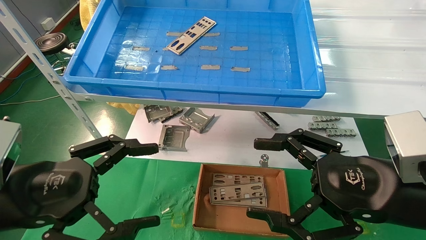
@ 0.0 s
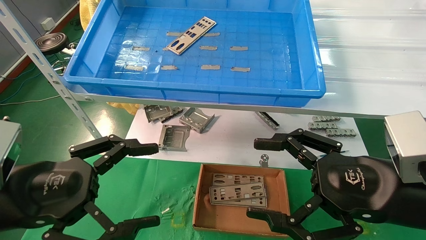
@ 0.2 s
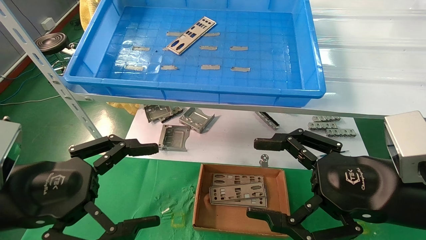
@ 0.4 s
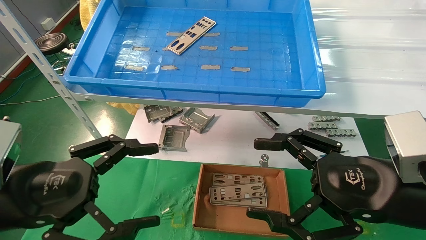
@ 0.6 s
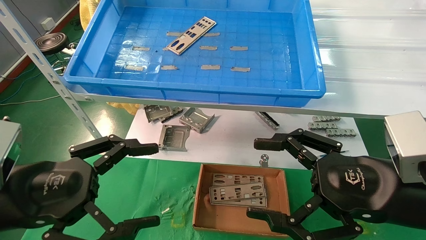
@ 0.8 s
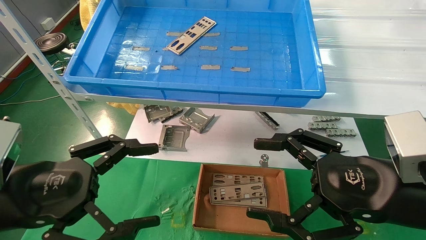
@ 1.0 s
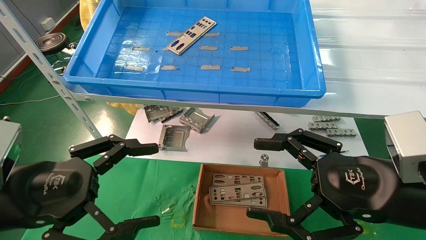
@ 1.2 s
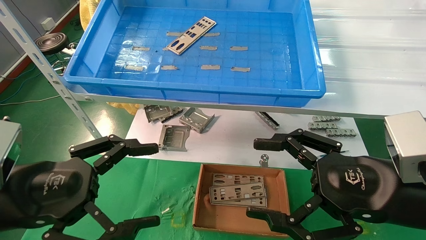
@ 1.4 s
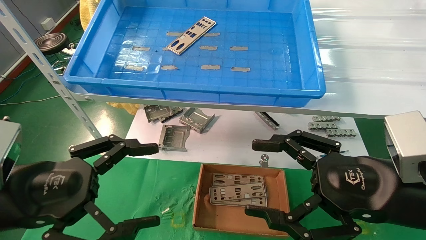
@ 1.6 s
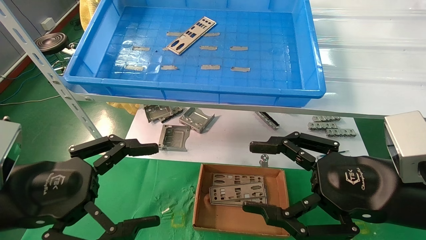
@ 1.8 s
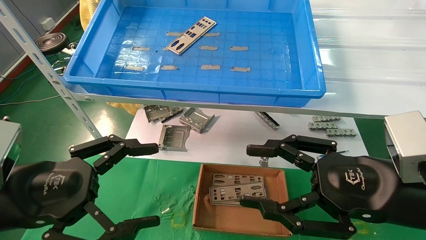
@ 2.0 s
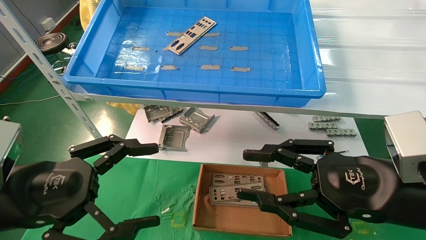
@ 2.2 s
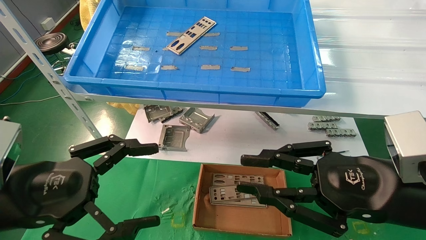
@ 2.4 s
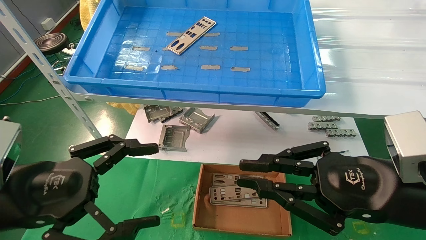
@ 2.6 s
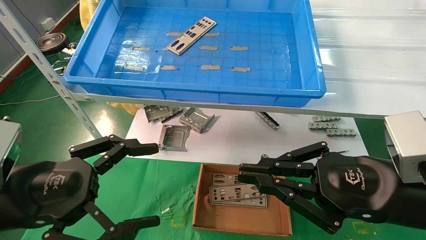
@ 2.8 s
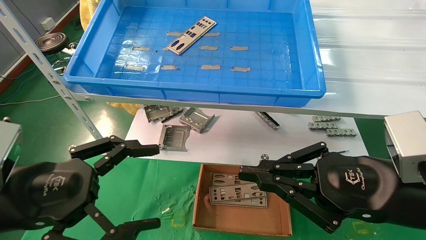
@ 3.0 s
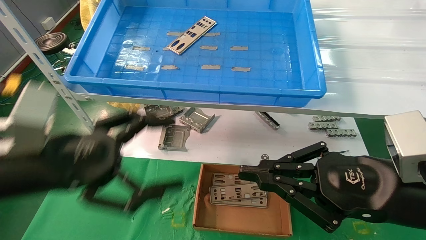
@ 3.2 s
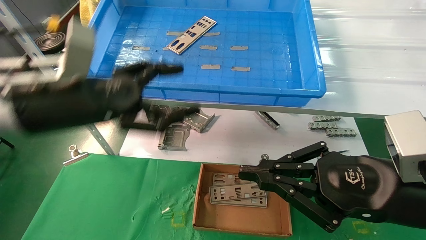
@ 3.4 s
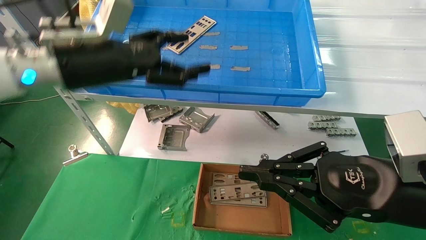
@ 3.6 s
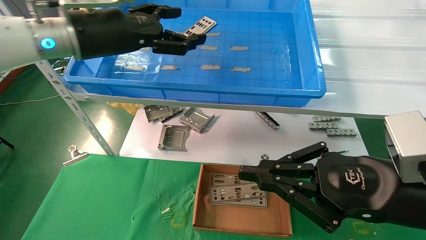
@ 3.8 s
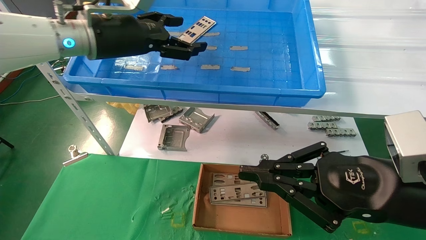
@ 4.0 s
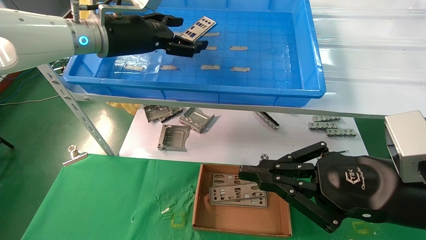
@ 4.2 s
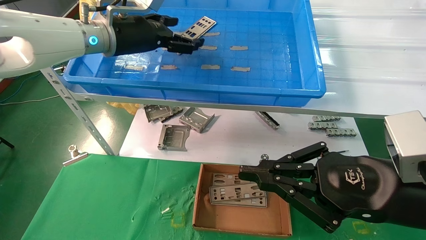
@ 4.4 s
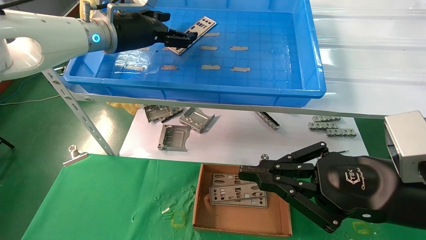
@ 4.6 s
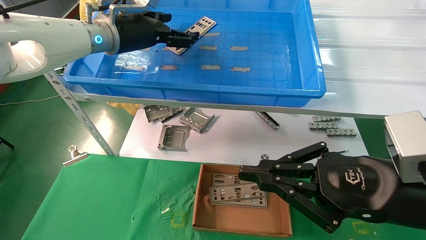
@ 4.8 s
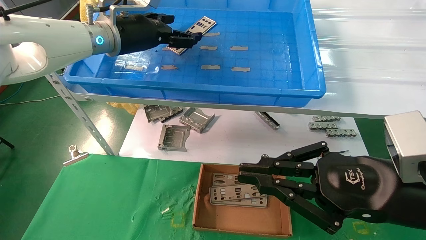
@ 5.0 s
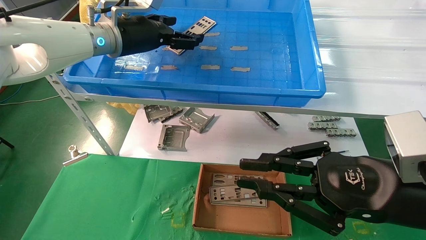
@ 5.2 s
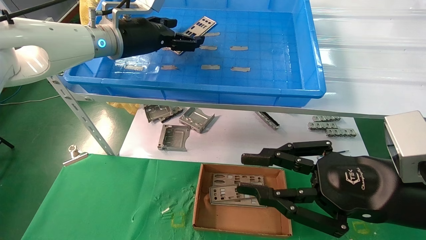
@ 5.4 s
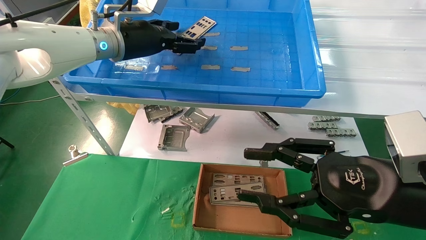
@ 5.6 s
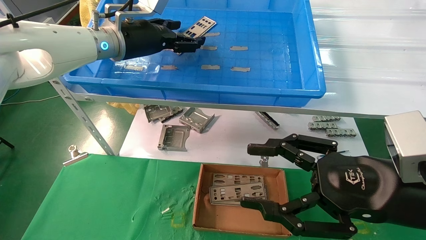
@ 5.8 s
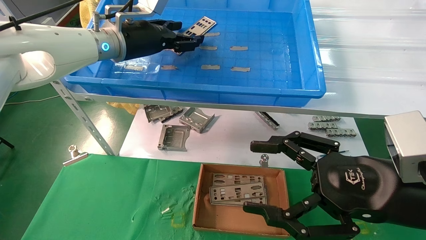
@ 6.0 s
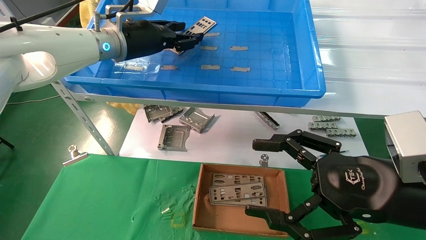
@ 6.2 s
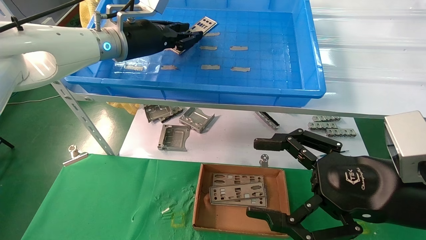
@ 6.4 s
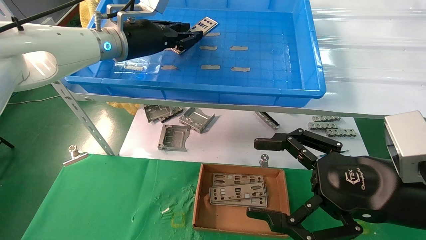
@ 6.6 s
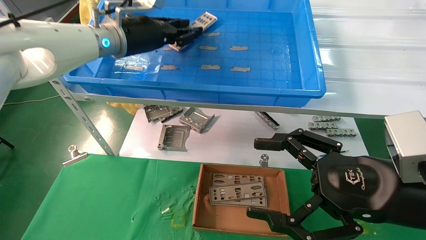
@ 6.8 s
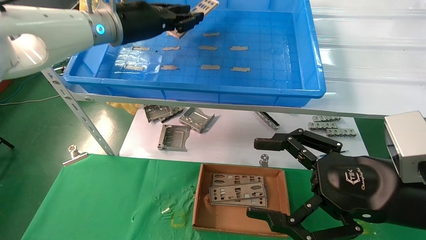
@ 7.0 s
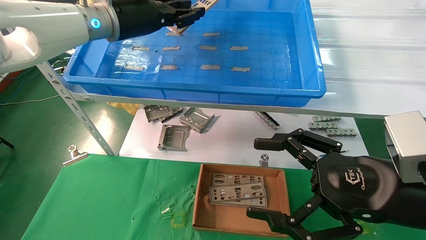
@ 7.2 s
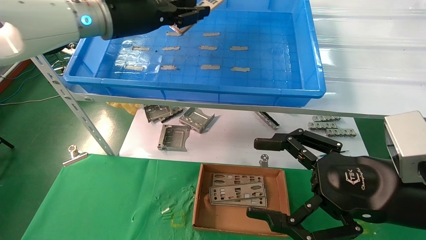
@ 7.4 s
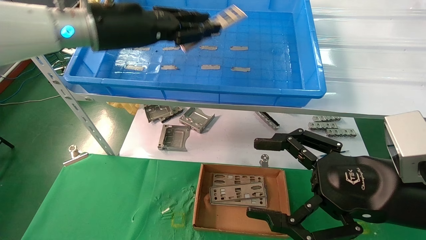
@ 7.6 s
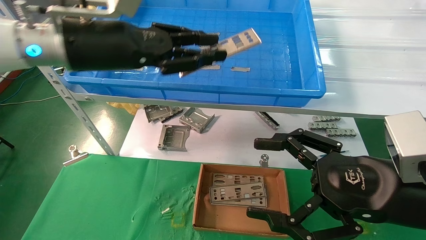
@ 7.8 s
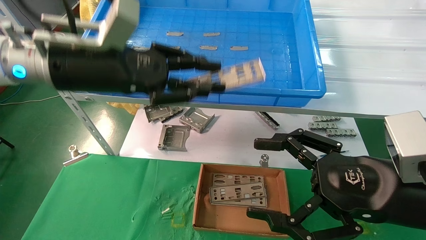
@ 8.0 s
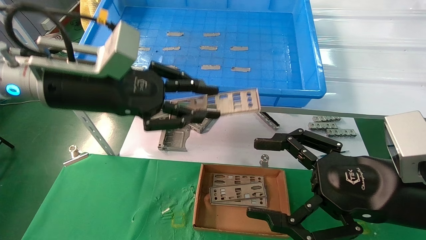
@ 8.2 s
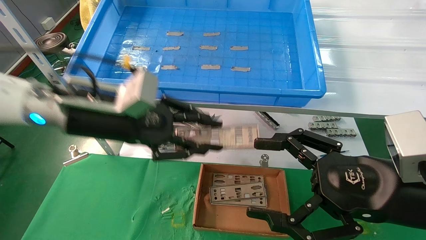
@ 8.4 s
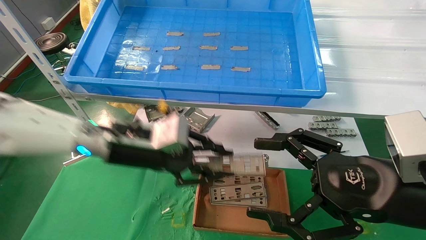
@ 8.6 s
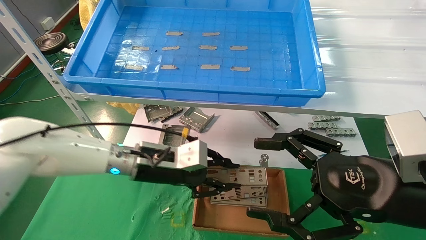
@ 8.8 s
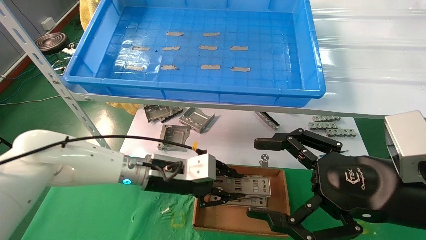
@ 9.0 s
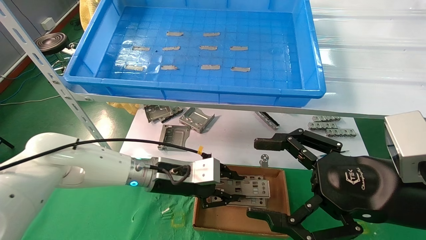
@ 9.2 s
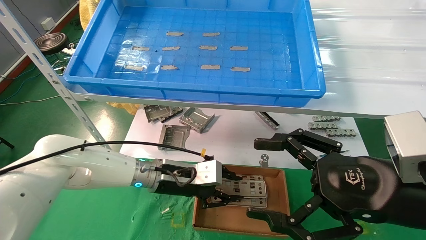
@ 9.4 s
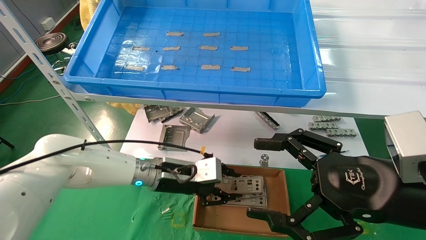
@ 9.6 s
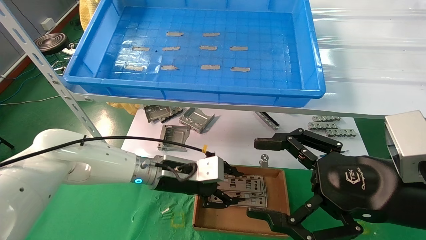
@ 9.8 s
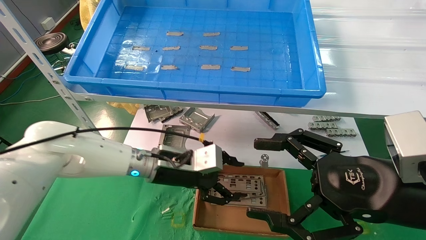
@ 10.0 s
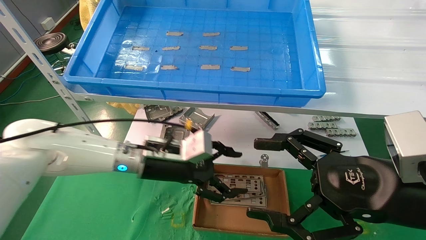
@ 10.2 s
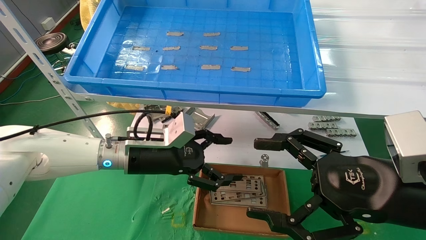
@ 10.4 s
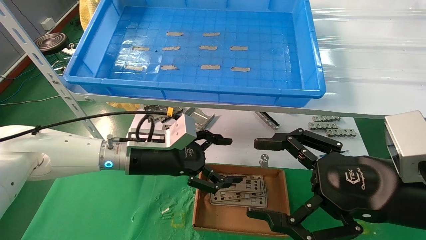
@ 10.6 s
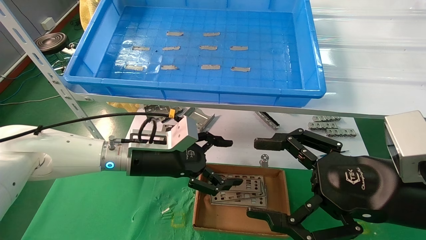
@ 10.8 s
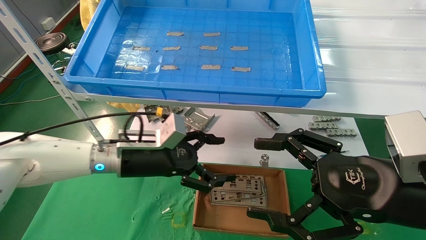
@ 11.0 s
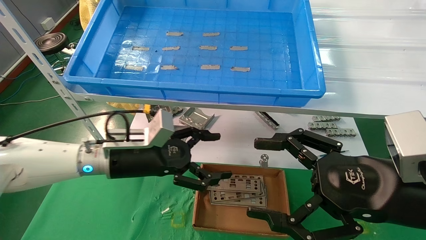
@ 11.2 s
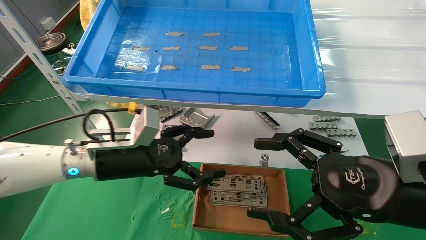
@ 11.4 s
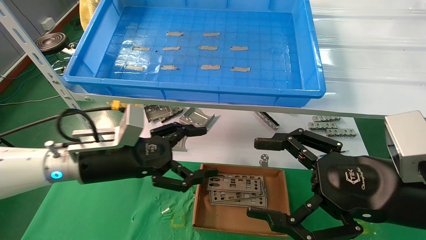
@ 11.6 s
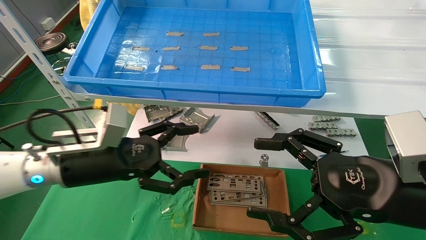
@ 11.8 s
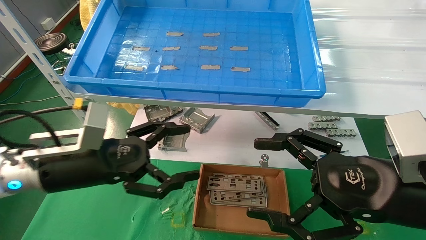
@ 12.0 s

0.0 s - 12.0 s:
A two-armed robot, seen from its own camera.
Task of the whole recording: pick up the parts on the tray and put them in the cardboard box.
Step, 3.4 s - 6.4 s: Pick up the IO bracket from the container box.
Step, 6.6 s - 10.2 s: Place the IO bracket into the ingredient slot.
0.0 s - 1.6 s: Both grippers stay about where they are.
1.6 s - 3.0 s: The right gripper closes its fingers.
3.0 s - 4.4 s: The left gripper shifts approximately 30 cm forward and upward.
4.4 s - 6.0 s: The right gripper opens.
6.0 s - 7.6 s: The left gripper moves backward, some 10 cm, and closes its fingers.
7.6 s - 9.0 s: The left gripper travels downward by approximately 25 cm.
9.0 s - 10.4 s: The left gripper opens up.
10.4 s - 12.0 s: The left gripper travels to the left and backward by some 15 cm.

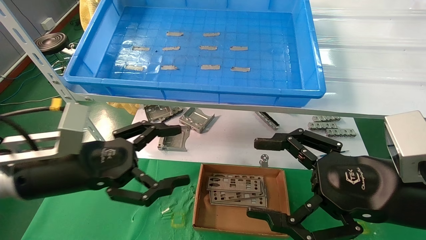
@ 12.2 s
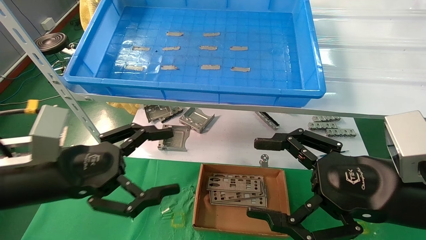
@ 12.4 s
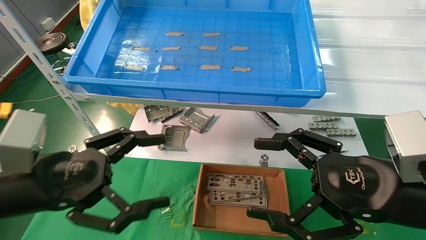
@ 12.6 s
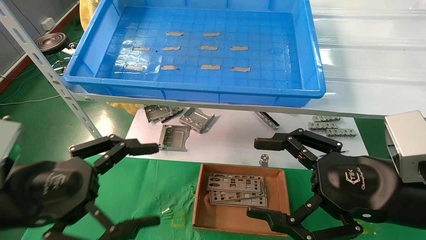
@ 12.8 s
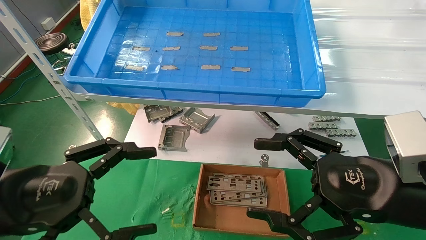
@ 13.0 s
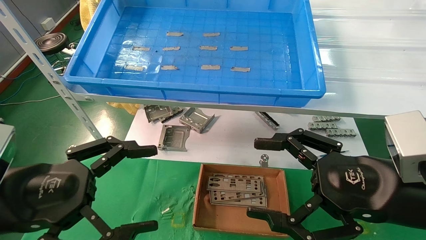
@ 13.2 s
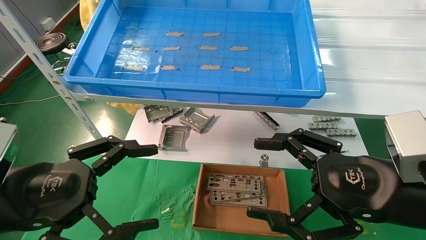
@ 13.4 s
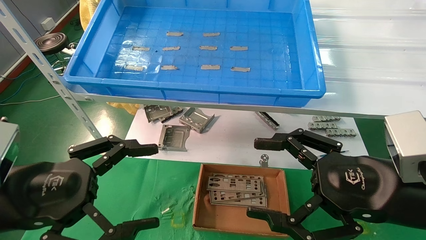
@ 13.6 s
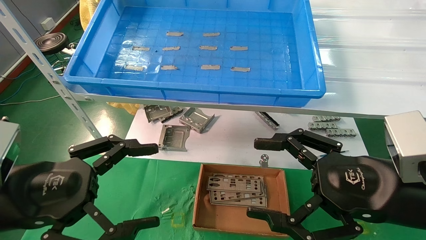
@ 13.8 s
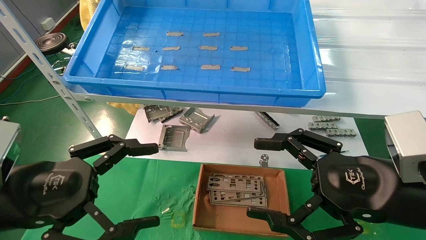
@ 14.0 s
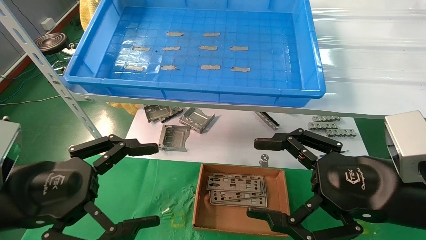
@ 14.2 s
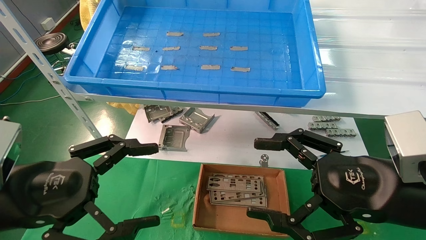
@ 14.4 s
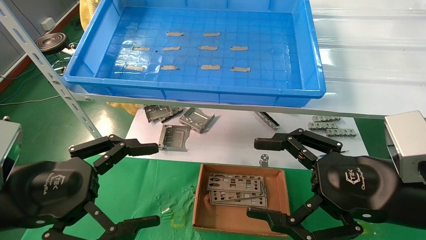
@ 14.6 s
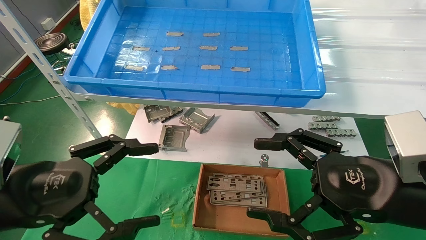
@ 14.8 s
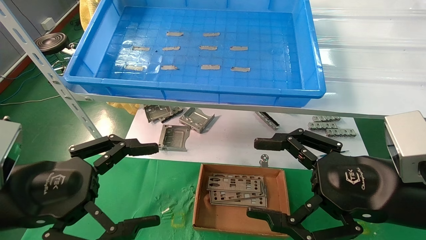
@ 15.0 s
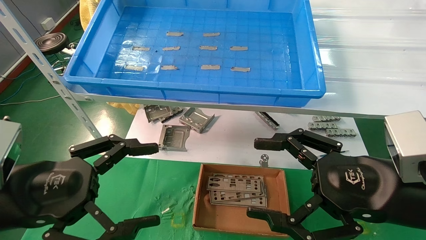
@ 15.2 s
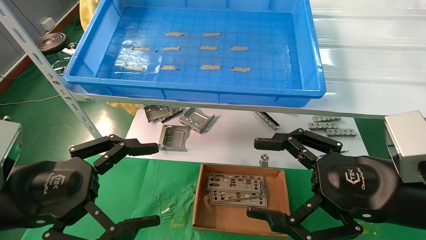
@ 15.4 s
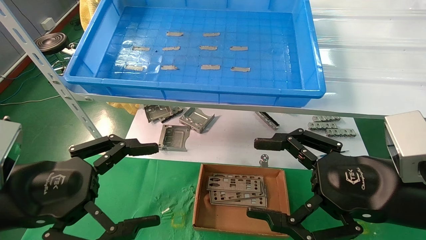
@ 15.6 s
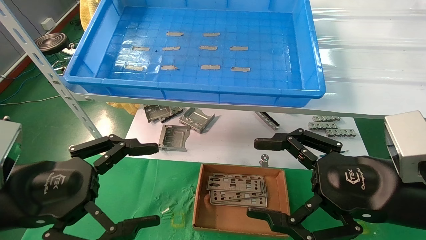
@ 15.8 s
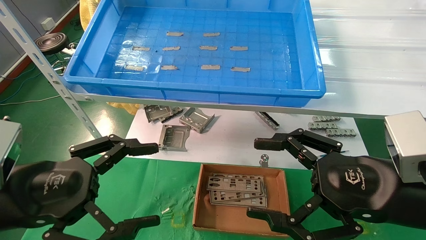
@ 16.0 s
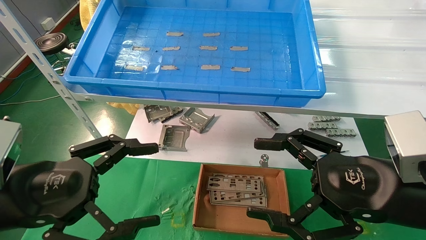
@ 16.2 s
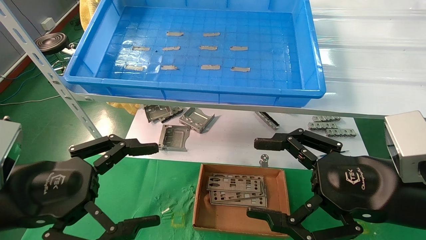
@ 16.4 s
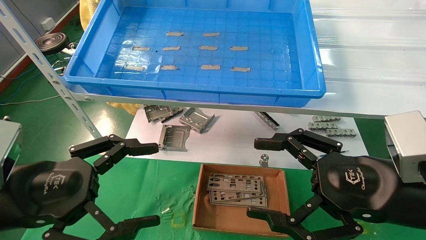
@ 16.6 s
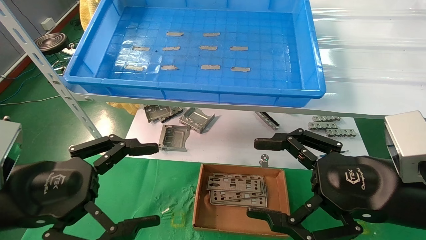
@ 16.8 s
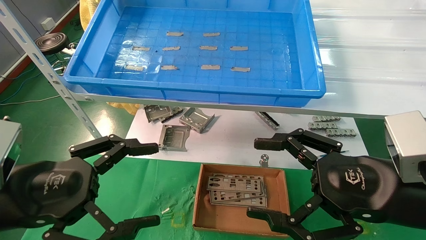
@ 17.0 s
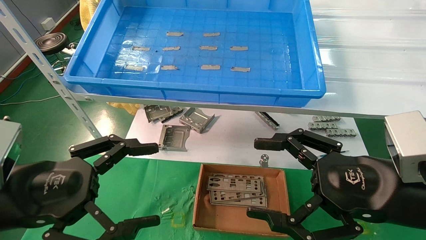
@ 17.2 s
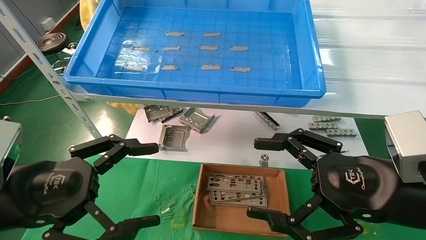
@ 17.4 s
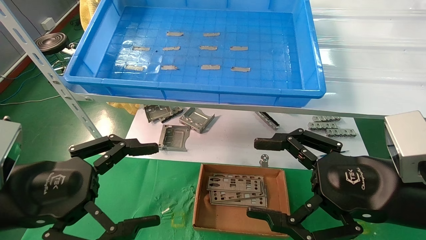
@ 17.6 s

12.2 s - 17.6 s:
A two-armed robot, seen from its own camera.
Task of the whole recording: pick up the parts on the tray and put them in the cardboard box.
12.2 s - 13.6 s: The left gripper moves backward, about 10 cm.
13.6 s - 17.6 s: Both grippers stay put.
